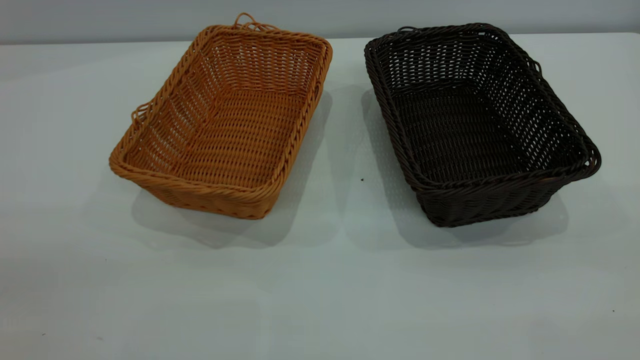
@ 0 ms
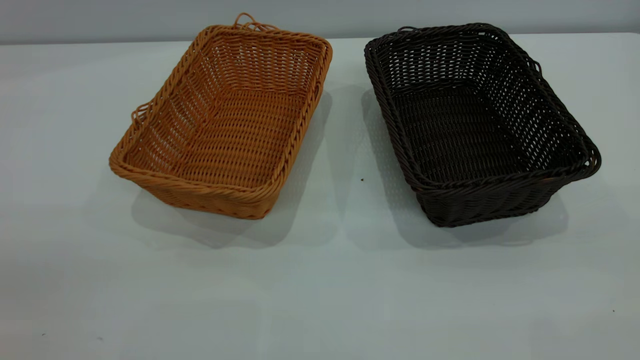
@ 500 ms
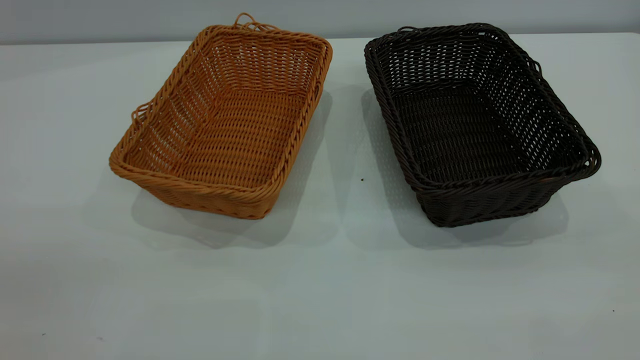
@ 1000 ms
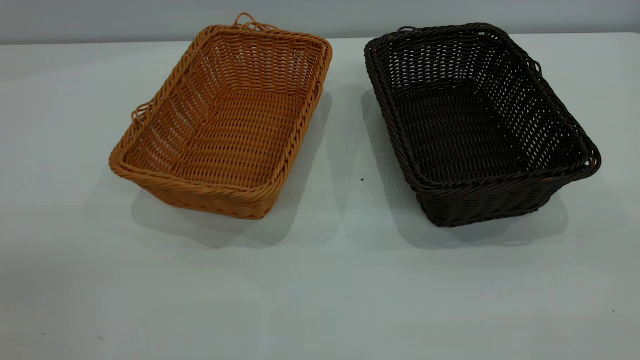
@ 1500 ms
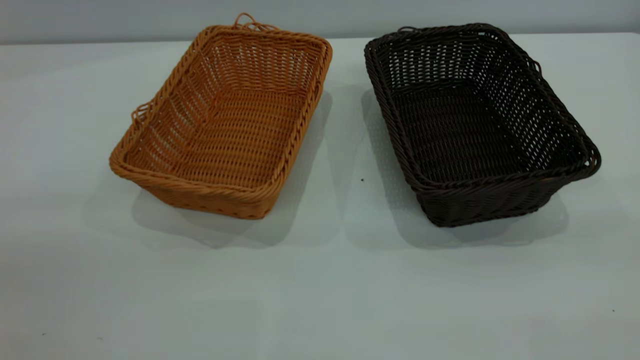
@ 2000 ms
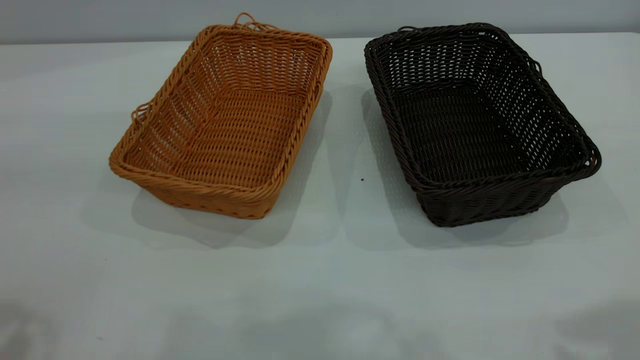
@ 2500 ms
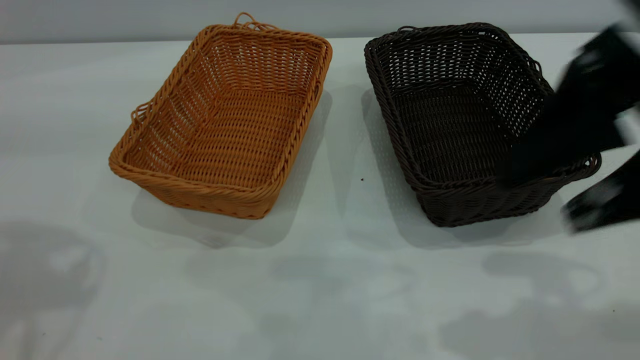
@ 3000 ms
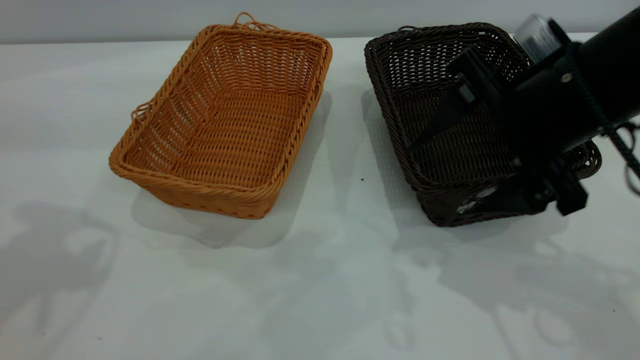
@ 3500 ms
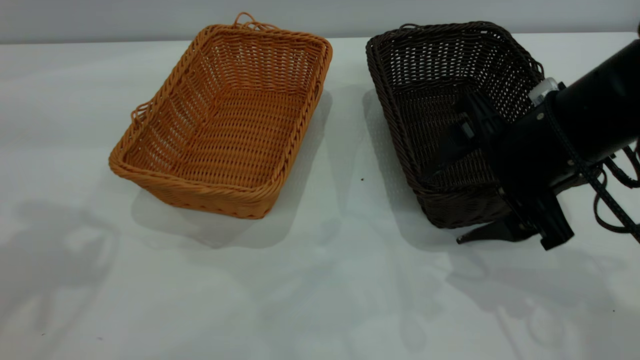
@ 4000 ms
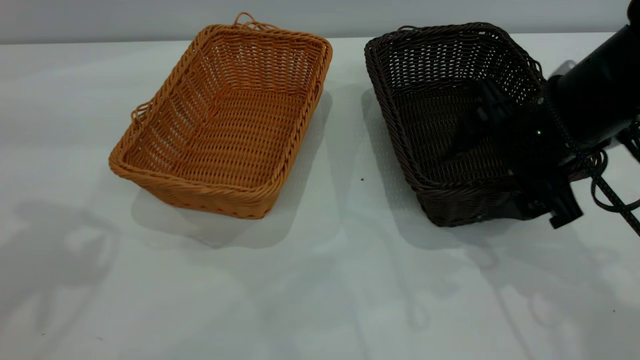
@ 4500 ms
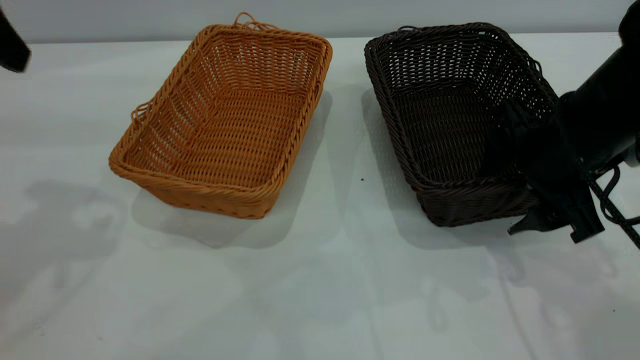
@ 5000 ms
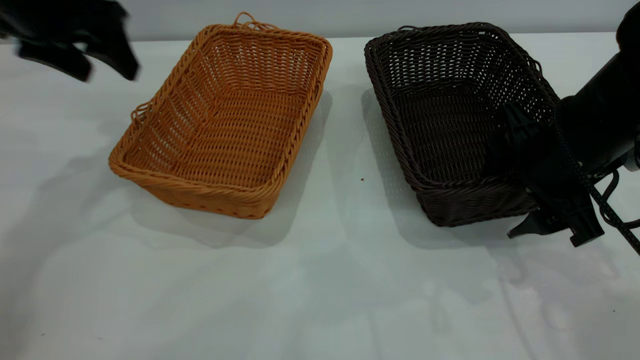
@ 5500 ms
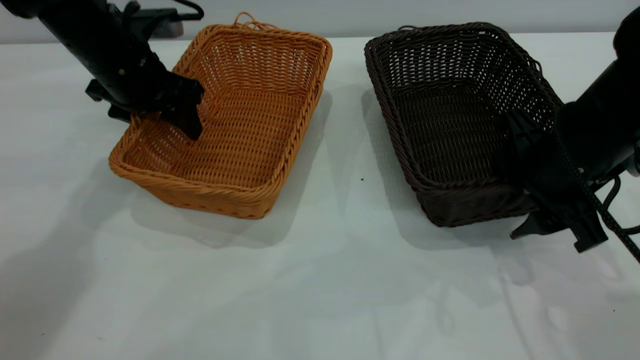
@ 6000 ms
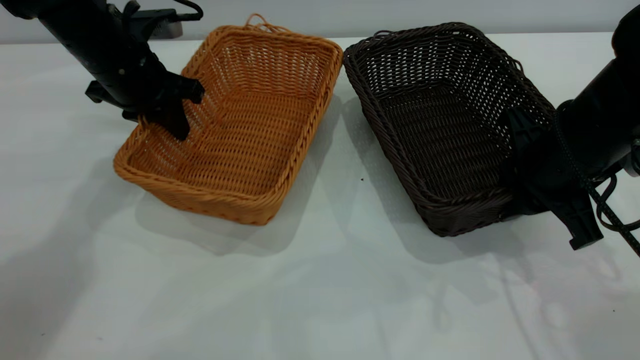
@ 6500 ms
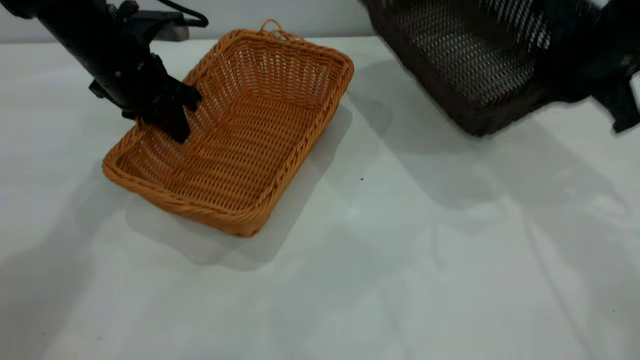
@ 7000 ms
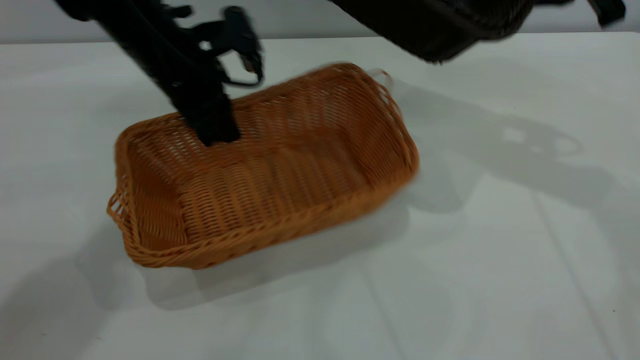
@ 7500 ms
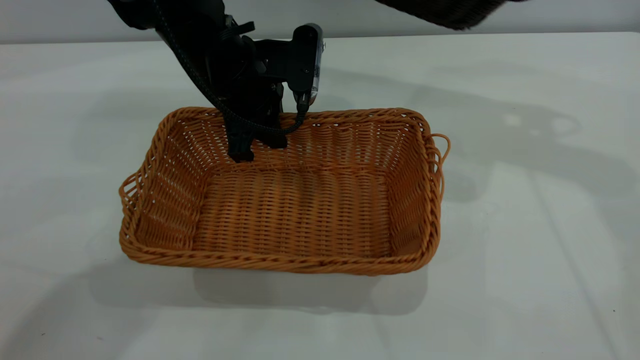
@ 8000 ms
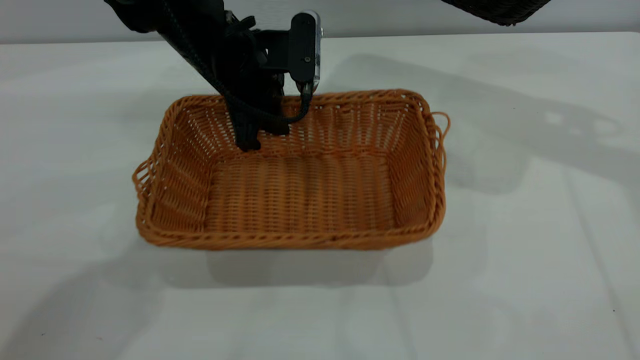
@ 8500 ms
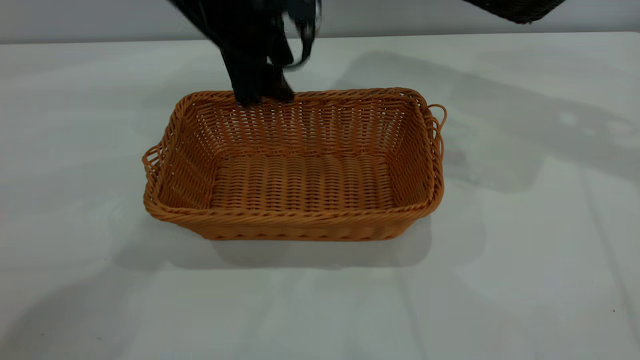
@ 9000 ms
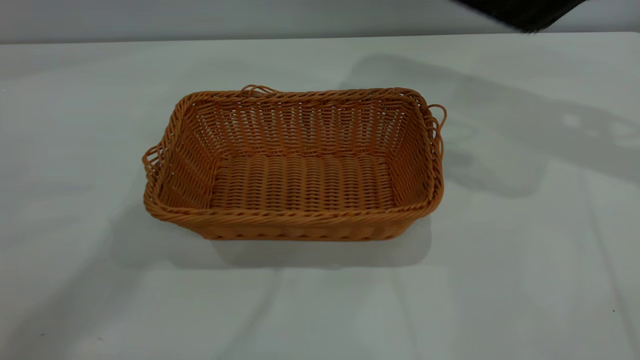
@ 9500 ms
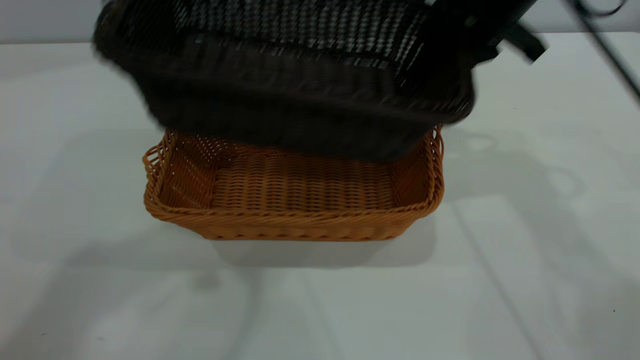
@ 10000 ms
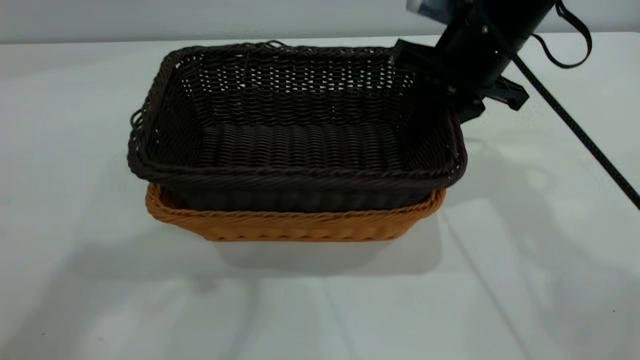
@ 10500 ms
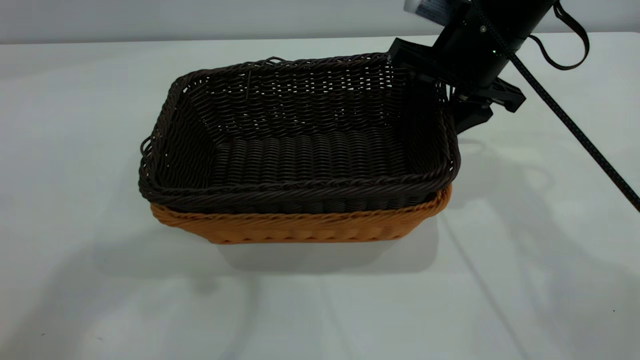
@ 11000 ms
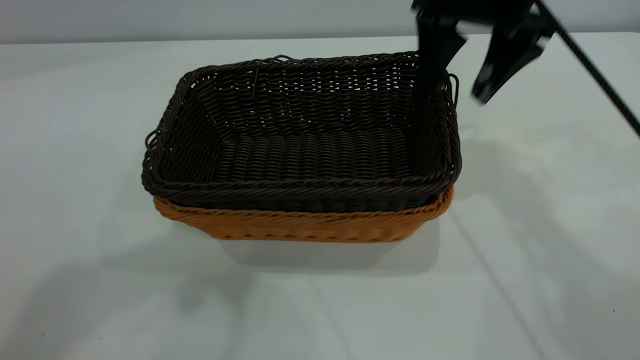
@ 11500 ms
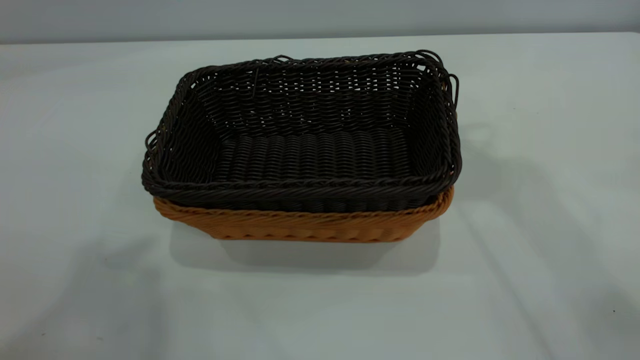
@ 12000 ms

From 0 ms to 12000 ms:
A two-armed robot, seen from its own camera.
Task of the whole recording: the left gripper grasp the brown basket and place it in the center of the table, the right gripper grasp the black basket and place it inside the brown one.
Step, from 0 ms to 6500 ms: Pick up the light basket with the right gripper.
Step, from 7000 ms to 9000 ms: Place the light-colored basket in the center.
Step, from 9500 ms to 11500 ms: Place the dark basket on top of the light basket.
From 2000 ms to 4000 ms: The right gripper goes some 35 cm forward, downward and to the left.
From 4000 ms to 6000 ms: The left gripper heads downward and forward, covering approximately 25 cm. The right gripper closes its fingers.
From 6000 ms to 8000 ms: The right gripper goes roughly 25 cm upward and forward, and closes up. The left gripper shifts roughly 10 cm to the right, and closes.
From 8000 ms to 10000 ms: The right gripper heads to the left and downward, covering roughly 15 cm, while the left gripper heads upward, covering approximately 35 cm, and opens its fingers.
From 10000 ms to 12000 ms: The right gripper heads upward, covering some 20 cm, and opens. Meanwhile the left gripper goes about 15 cm backward, upward and to the left.
